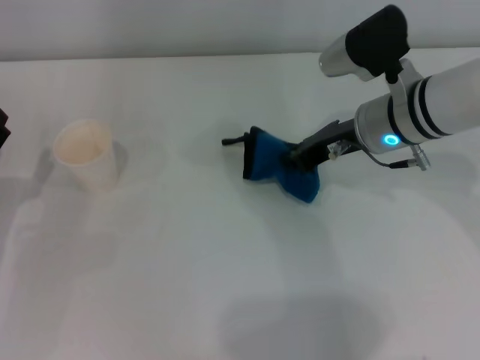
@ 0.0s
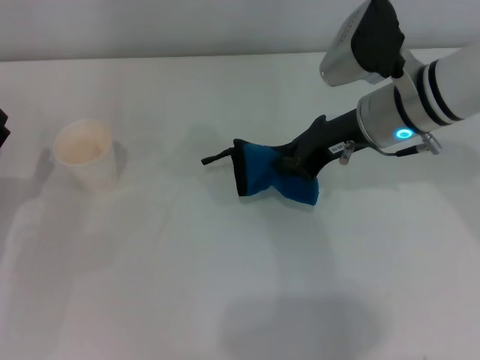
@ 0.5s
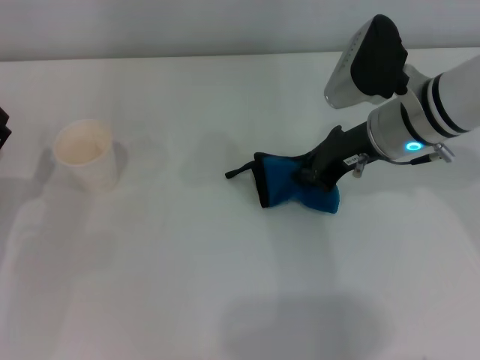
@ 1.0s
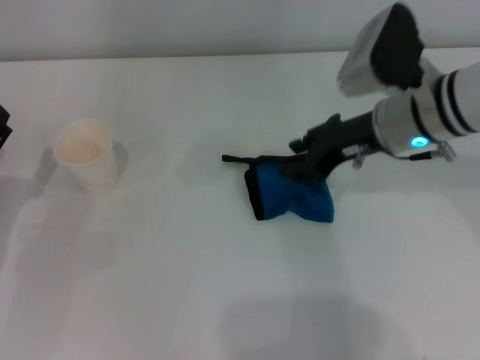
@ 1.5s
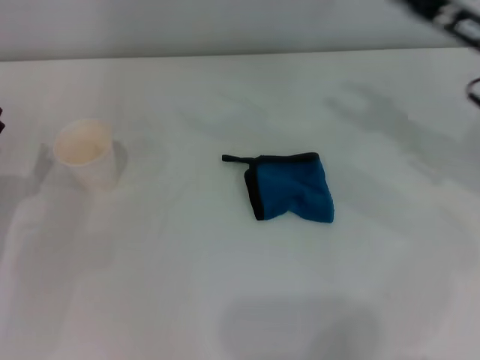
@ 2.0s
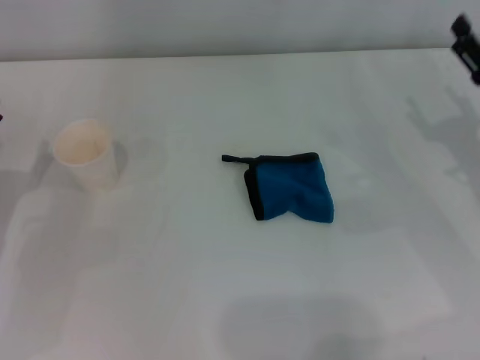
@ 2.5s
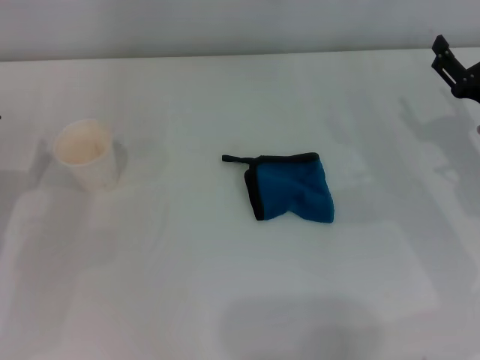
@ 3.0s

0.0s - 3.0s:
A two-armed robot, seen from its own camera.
Step, 0.5s - 1.0s: Place the rag on the table with the right gripper.
0.0s - 1.5s: The grippers make only small movements.
1.5s - 3.0s: The right gripper travels to the right, downward and backward by some 15 cm, and opens.
